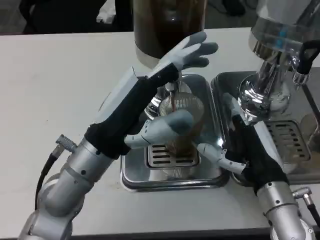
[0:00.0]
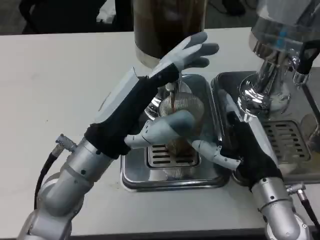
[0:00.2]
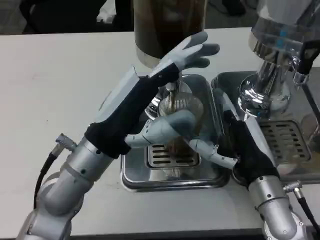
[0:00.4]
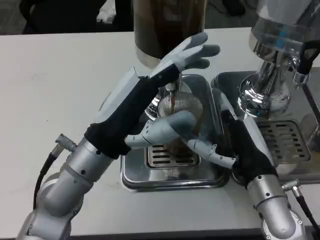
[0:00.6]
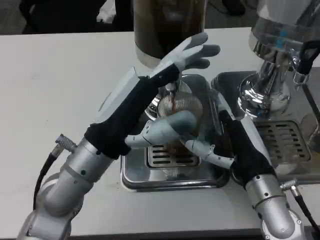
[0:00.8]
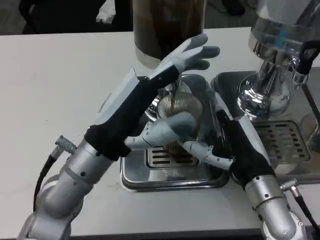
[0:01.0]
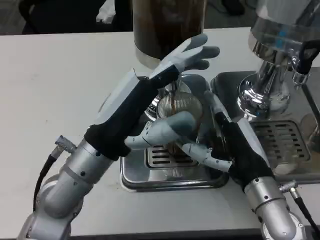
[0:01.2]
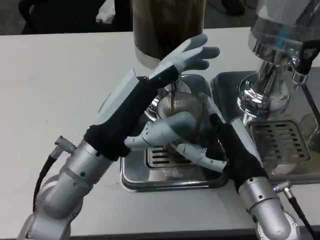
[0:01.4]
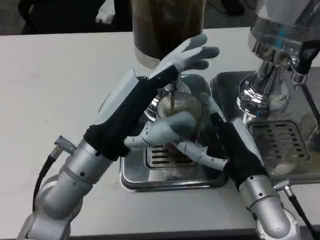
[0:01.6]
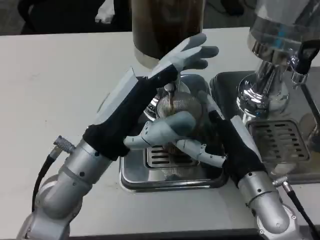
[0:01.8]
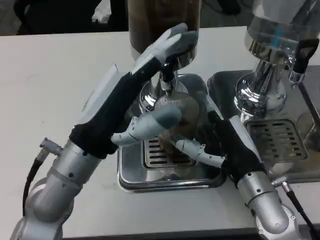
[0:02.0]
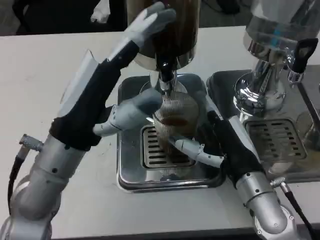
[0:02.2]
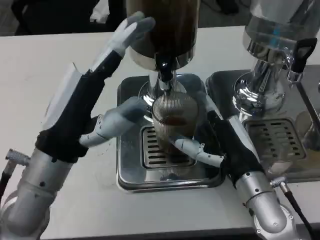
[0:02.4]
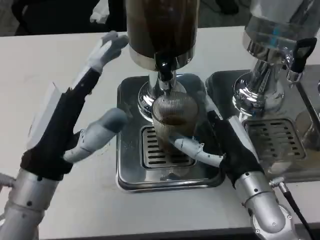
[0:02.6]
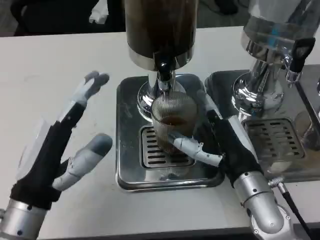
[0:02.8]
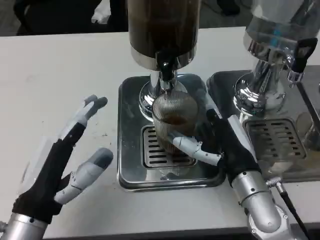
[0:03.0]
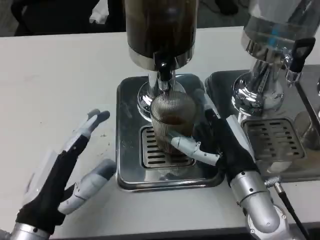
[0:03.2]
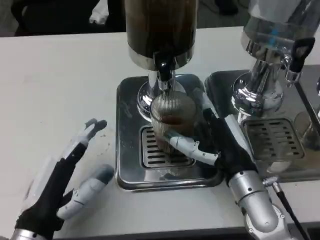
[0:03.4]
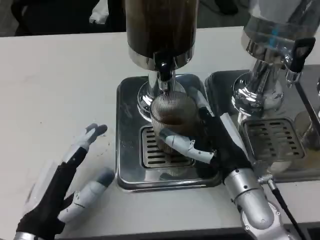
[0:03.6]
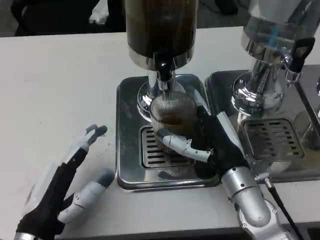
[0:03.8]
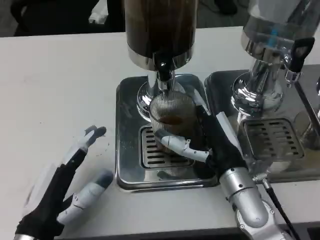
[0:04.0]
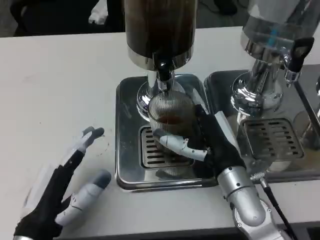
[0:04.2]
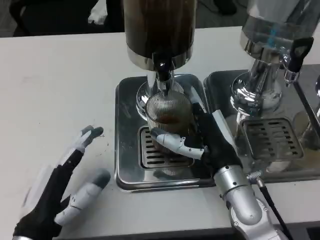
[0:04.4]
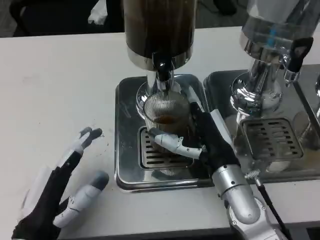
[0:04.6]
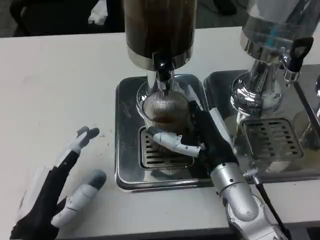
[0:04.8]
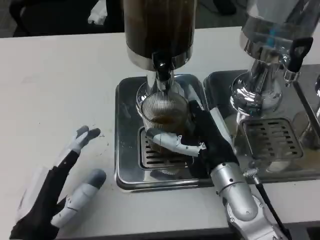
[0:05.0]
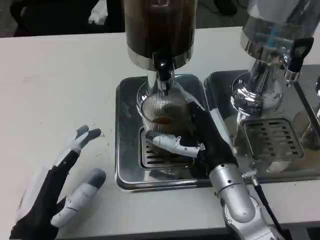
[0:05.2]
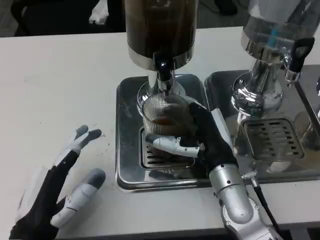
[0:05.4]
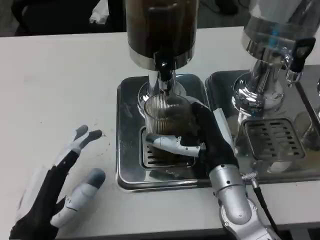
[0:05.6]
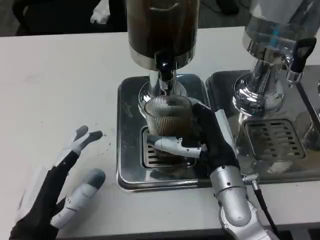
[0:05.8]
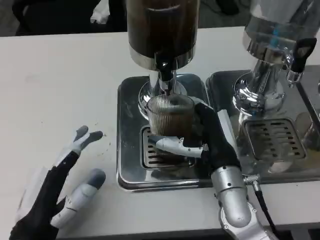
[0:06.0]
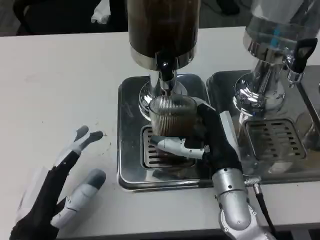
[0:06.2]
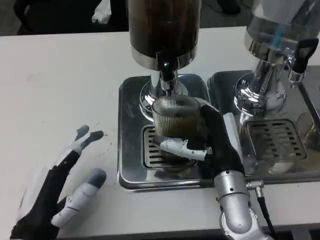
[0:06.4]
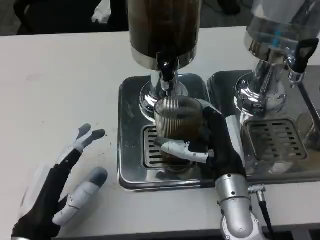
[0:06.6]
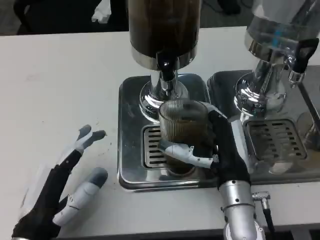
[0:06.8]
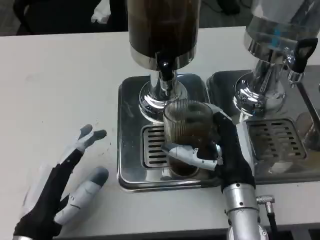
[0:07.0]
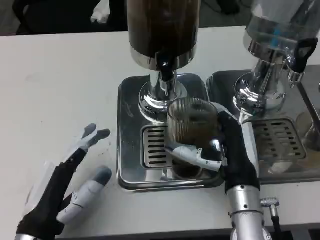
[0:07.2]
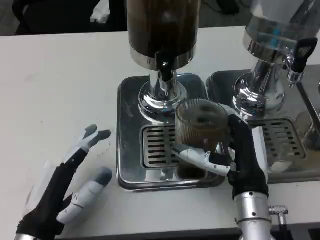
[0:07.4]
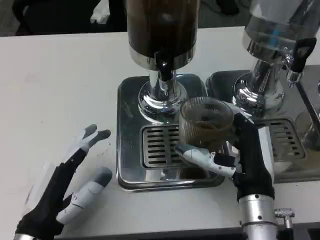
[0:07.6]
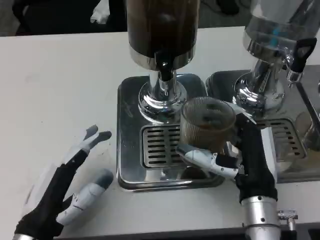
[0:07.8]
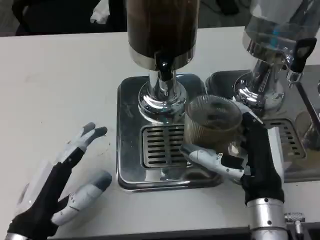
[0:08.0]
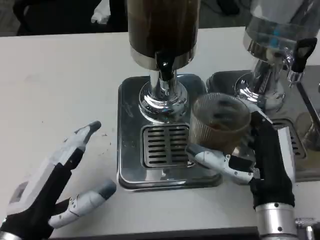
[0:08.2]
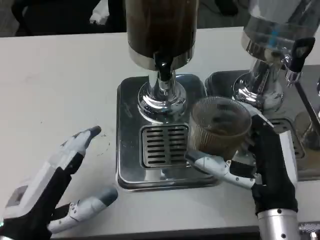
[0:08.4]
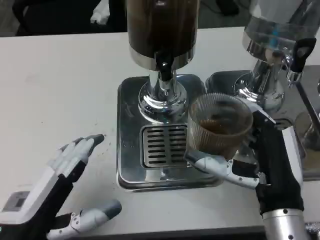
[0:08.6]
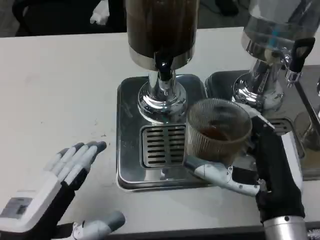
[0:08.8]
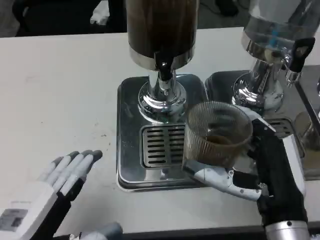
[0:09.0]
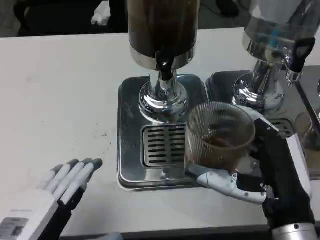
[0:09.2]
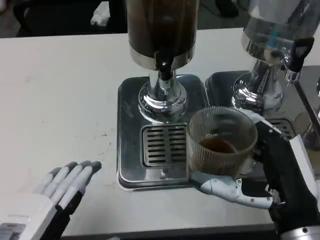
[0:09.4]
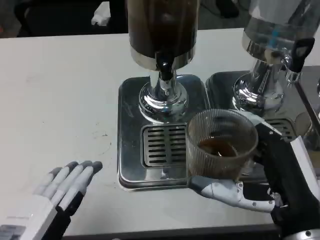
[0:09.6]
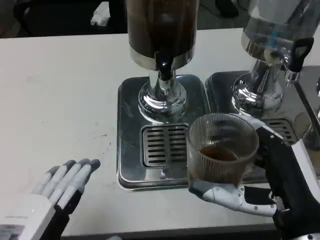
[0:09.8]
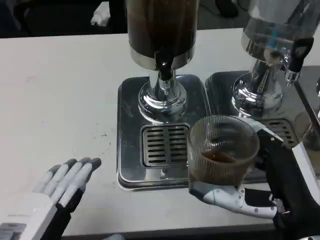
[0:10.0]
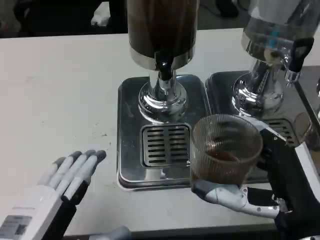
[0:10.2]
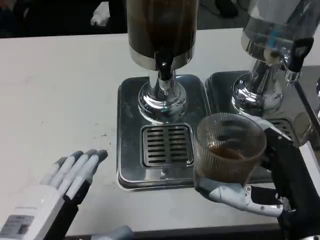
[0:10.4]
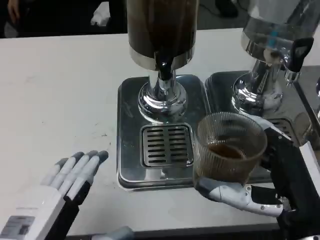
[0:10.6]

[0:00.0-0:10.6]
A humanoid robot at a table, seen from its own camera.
Task of the whole recording: Grasp the cup under the faucet to collect the drink, then remove the cup.
0:00.0 to 0:01.6: There are only small adjustments of the hands.
0:01.6 to 0:03.0: The left hand moves backward, to the left and downward, about 10 cm.
0:04.6 to 0:06.0: There are only small adjustments of the hands.
0:06.0 to 0:07.6: The right hand shifts about 5 cm backward.
0:07.6 to 0:09.0: The two hands go approximately 5 cm backward.

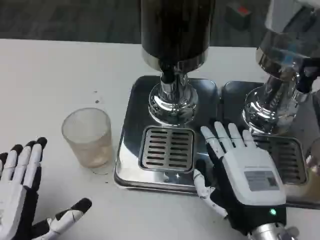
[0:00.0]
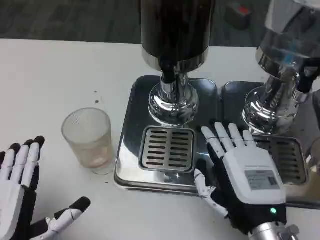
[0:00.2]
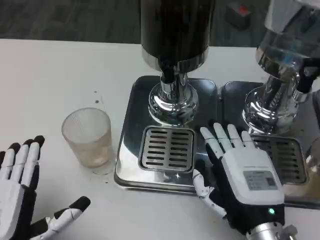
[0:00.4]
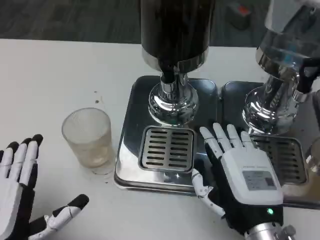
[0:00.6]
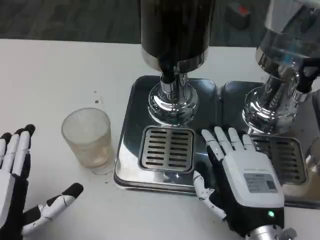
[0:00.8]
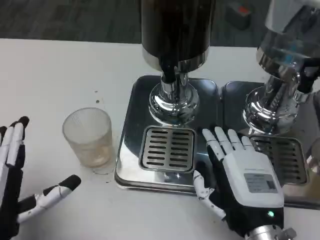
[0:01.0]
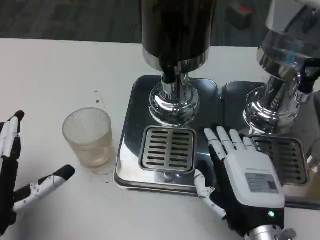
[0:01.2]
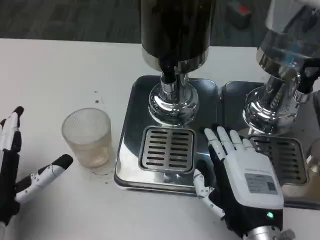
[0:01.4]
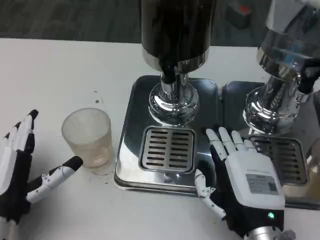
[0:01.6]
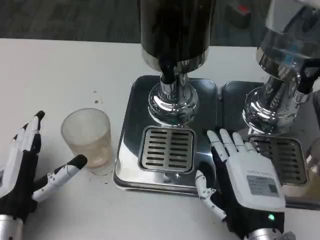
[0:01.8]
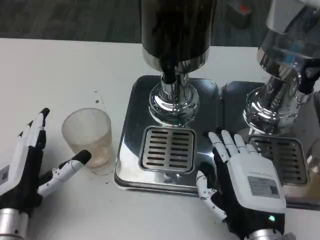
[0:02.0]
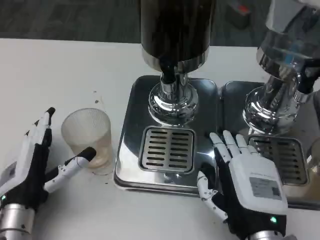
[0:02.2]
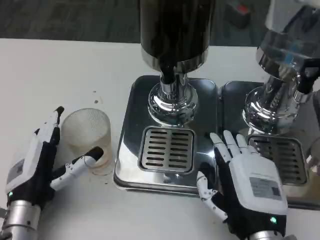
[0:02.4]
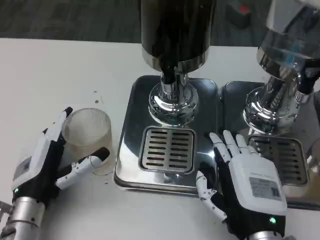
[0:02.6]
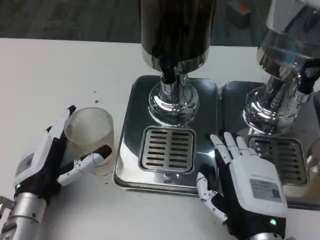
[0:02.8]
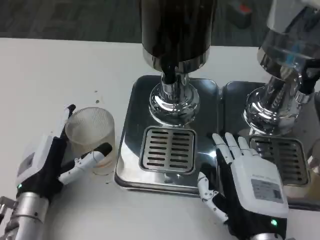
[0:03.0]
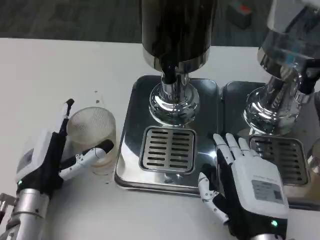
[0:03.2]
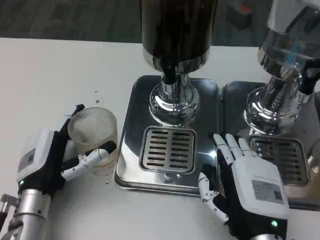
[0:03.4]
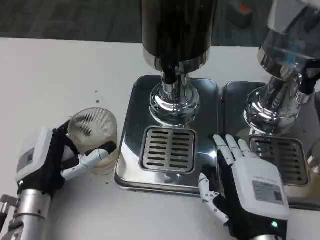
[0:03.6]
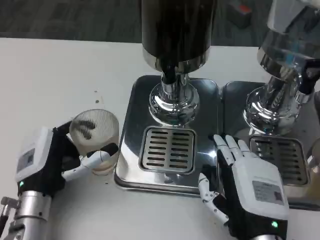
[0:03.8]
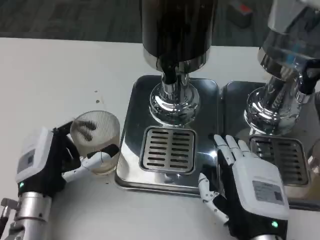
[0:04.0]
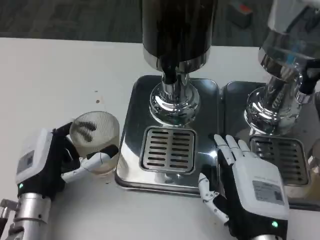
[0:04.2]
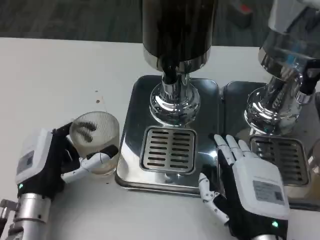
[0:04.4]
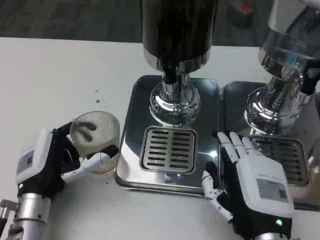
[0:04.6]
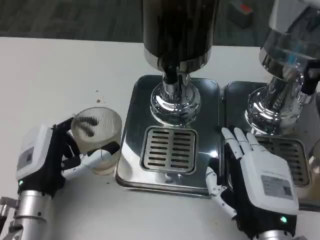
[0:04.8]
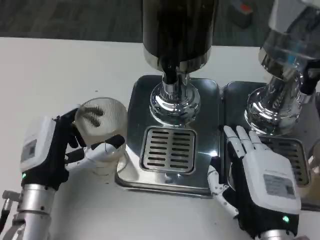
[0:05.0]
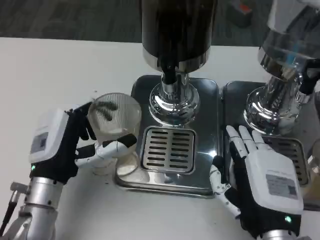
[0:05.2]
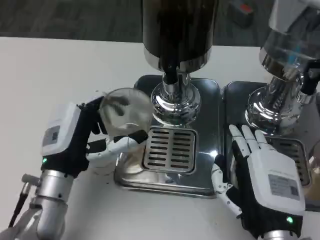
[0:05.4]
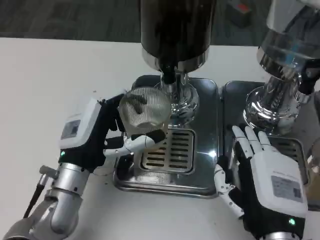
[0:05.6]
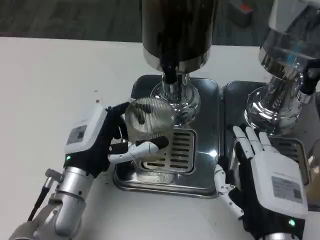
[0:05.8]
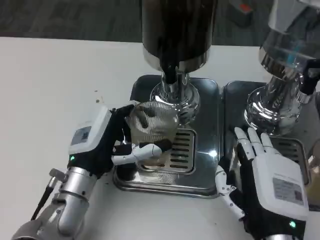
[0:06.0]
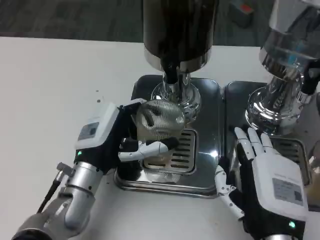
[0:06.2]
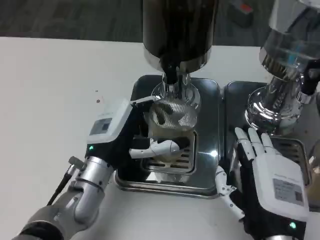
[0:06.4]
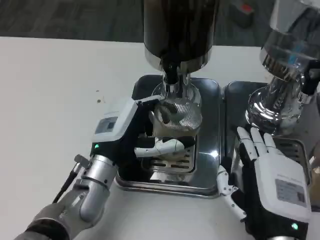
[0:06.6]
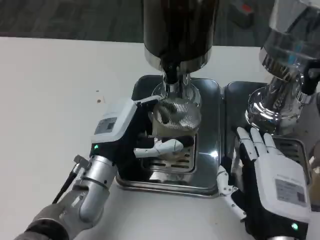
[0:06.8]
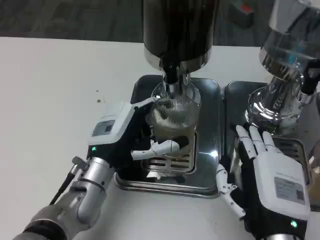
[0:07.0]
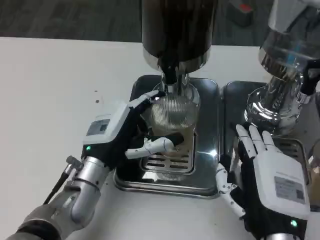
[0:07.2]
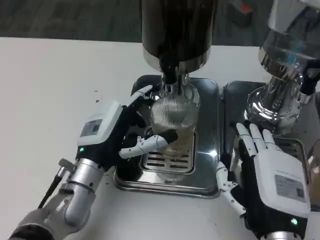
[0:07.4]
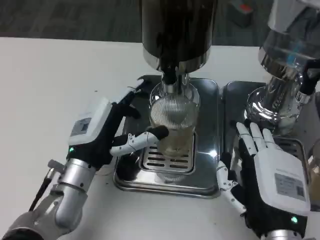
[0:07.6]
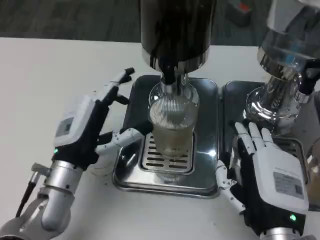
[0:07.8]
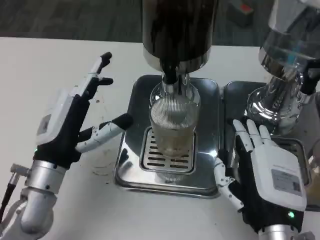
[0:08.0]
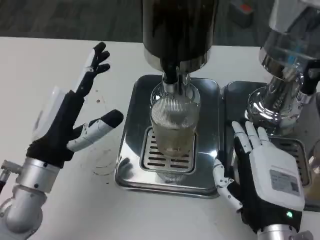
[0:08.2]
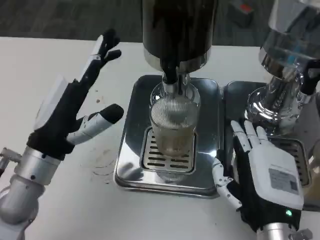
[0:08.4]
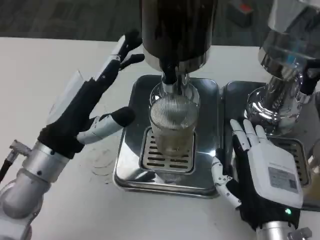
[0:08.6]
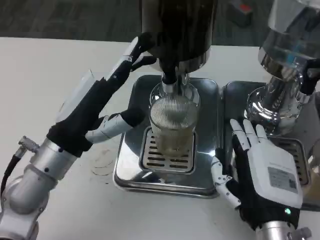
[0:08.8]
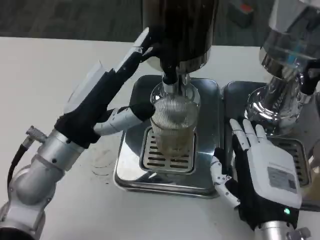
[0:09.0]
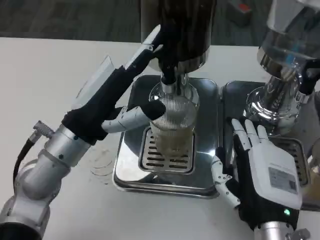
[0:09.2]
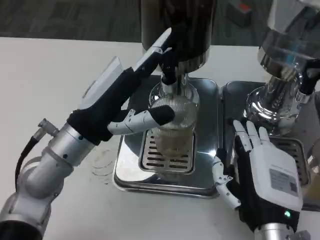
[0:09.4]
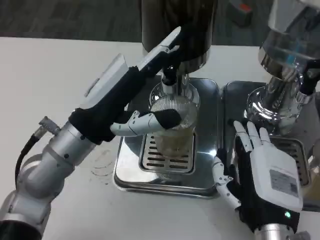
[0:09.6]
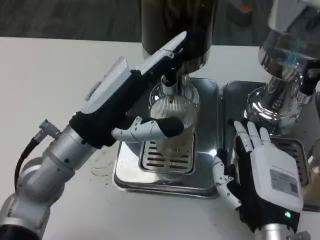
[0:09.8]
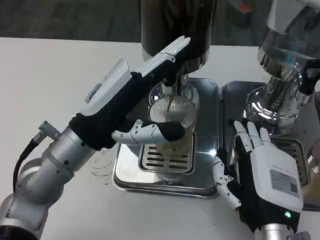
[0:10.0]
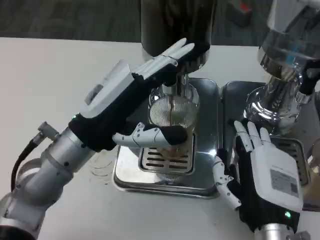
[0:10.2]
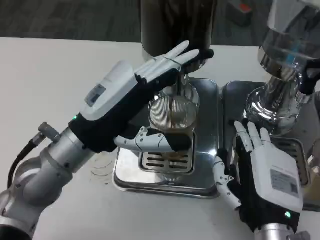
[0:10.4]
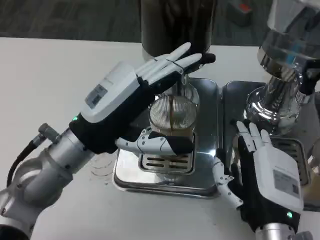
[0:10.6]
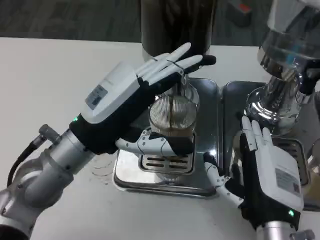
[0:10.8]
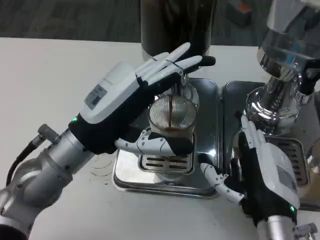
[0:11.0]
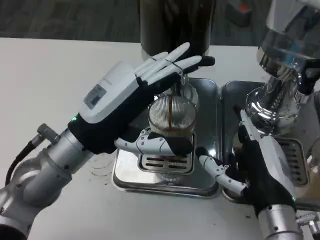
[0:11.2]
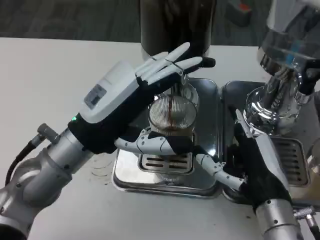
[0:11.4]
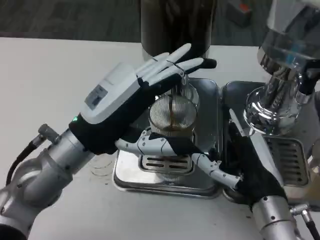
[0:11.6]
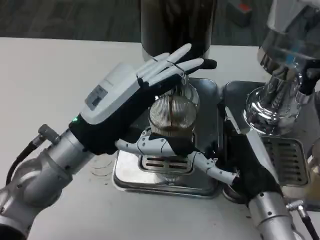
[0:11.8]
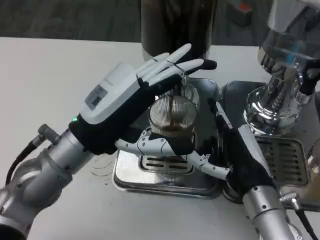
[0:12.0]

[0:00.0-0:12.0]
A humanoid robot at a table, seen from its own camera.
Task of the whole recording: Grasp the cup under the faucet to collect the drink, then remove the cup.
0:00.0 to 0:01.6: The left hand is displaced forward by about 5 cm.
0:01.6 to 0:03.0: The left hand shifts by approximately 5 cm.
0:03.0 to 0:04.4: The hands make only small movements.
0:04.4 to 0:06.0: The left hand shifts approximately 5 cm to the right.
0:06.0 to 0:07.6: The hands stay close to where they were, moving slightly.
0:07.6 to 0:09.0: The left hand is displaced upward by roughly 5 cm.
0:10.4 to 0:12.0: The right hand shifts about 5 cm forward.
